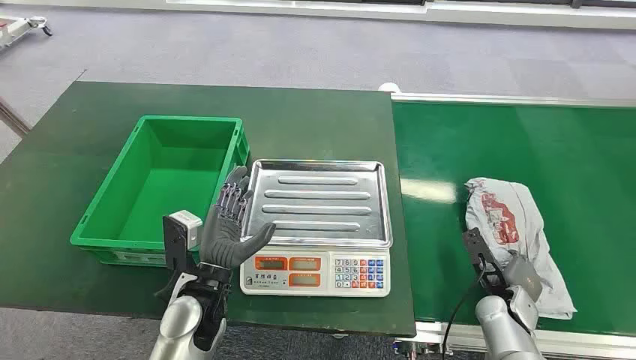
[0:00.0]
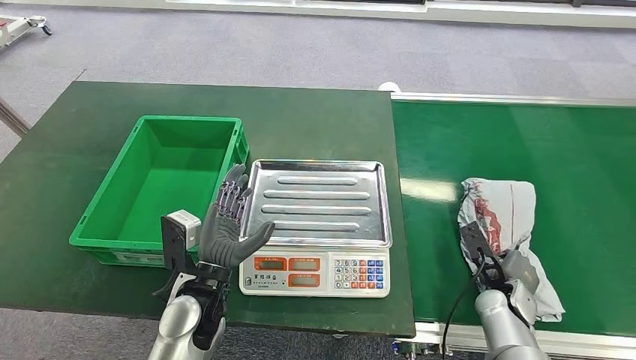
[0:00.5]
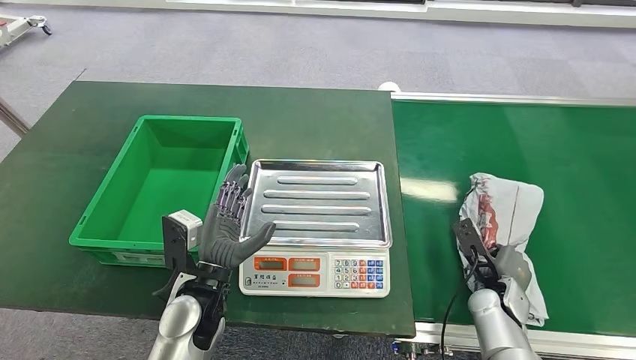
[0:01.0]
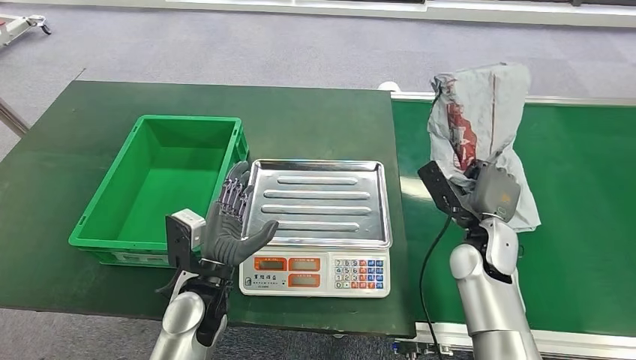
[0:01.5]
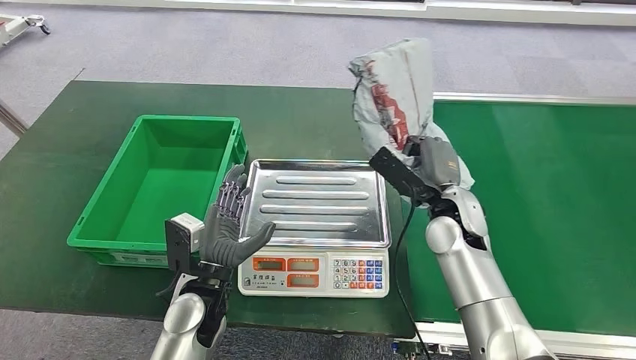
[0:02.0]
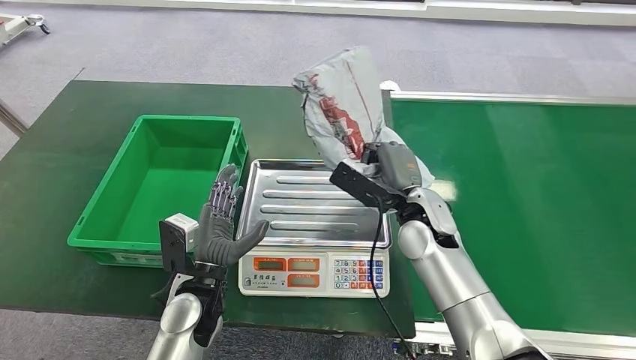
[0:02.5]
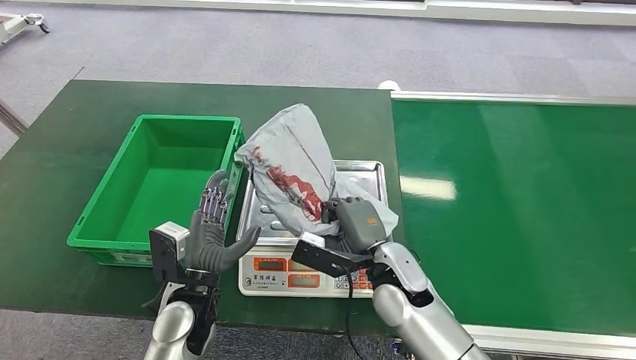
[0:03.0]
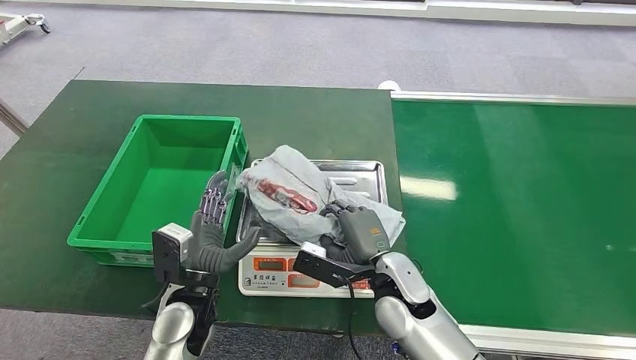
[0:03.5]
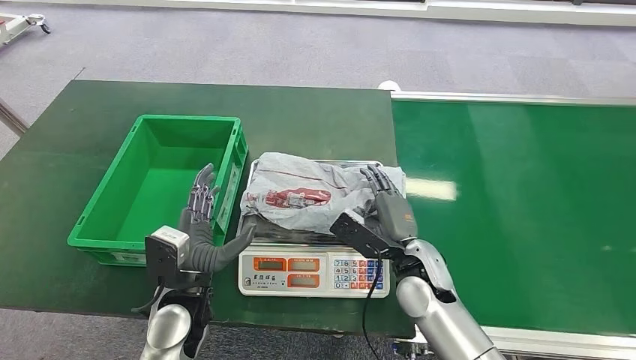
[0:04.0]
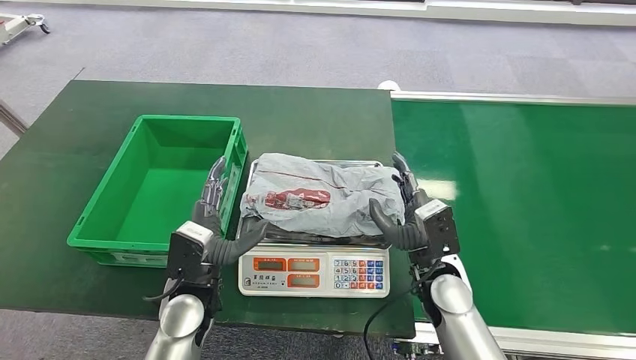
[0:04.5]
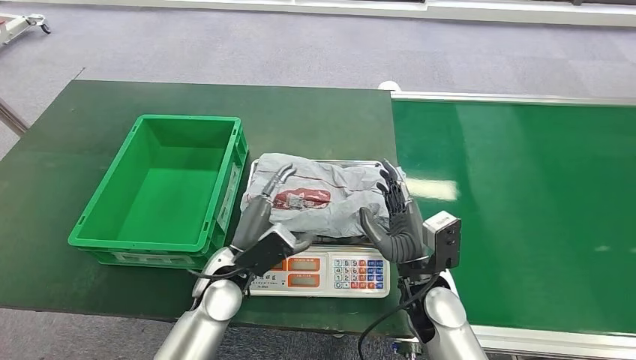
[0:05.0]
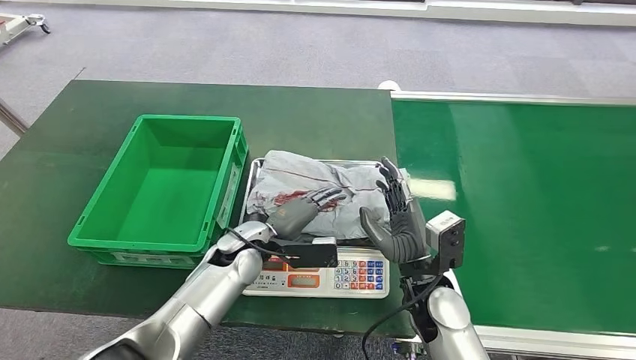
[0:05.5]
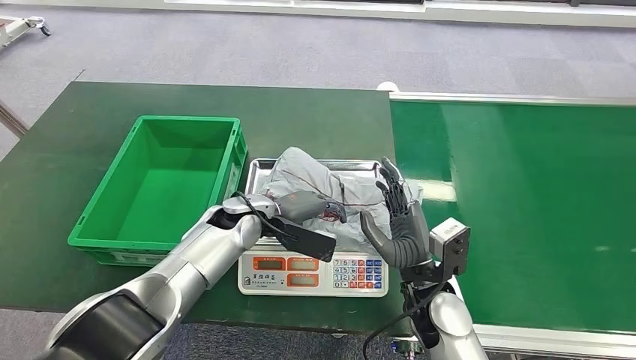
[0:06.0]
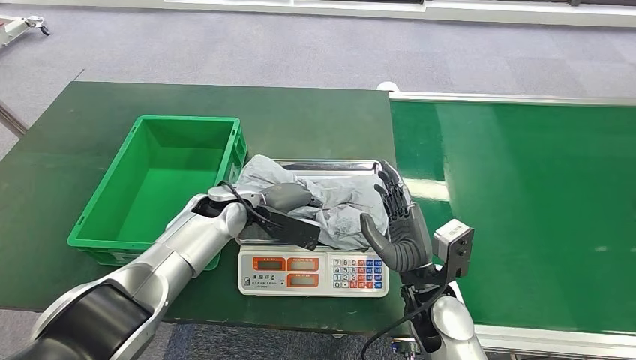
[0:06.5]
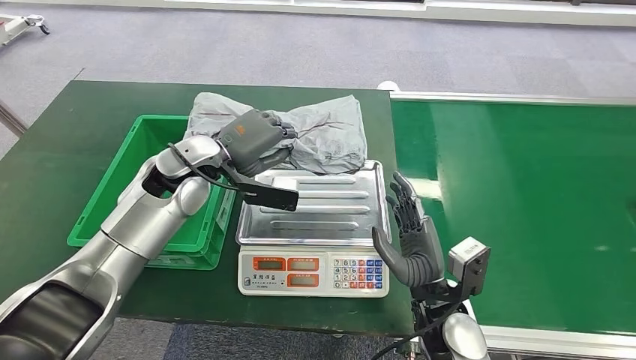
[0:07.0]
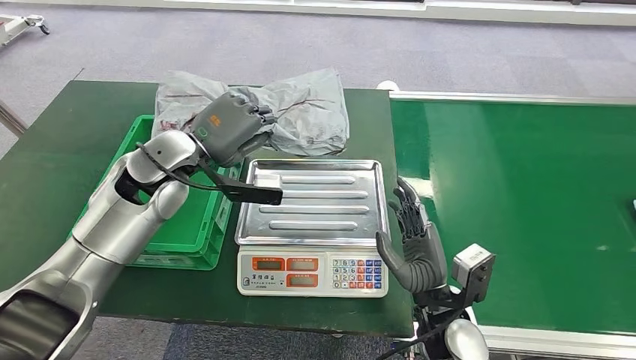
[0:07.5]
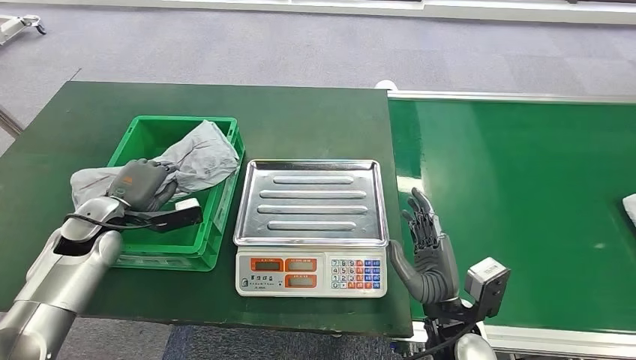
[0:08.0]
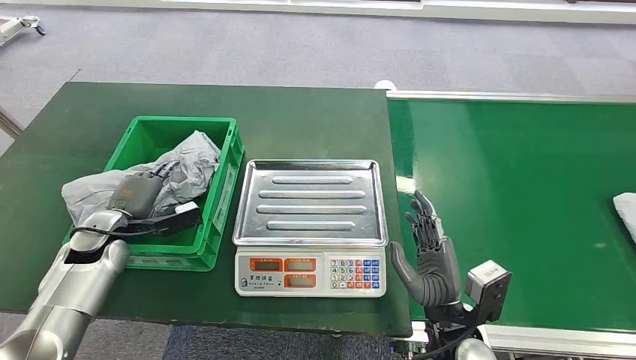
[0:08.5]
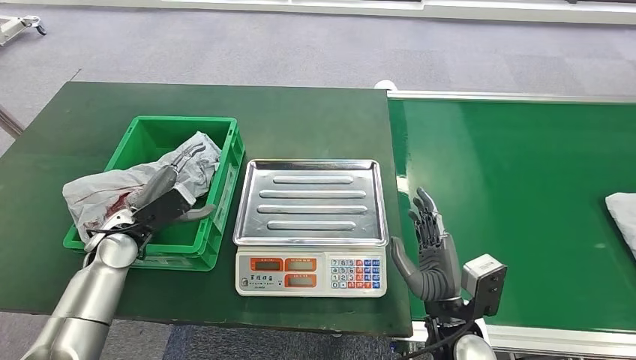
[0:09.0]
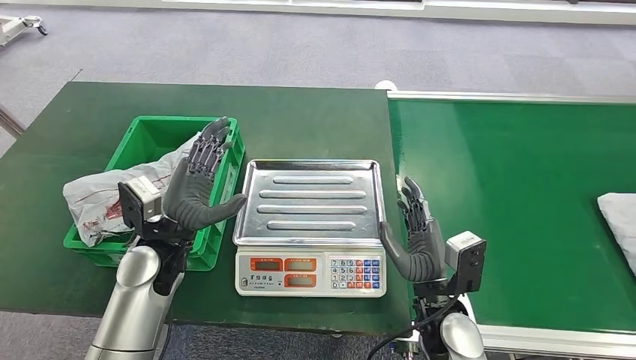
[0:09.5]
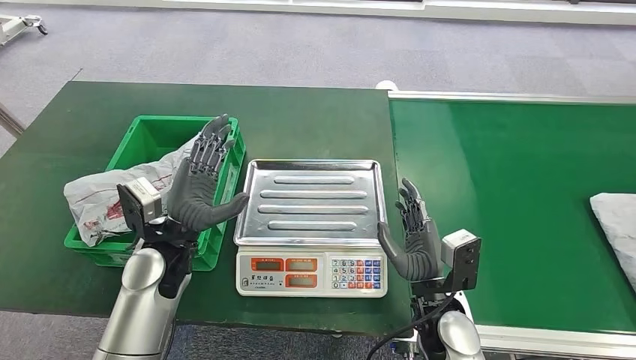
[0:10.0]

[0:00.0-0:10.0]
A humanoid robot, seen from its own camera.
Step, 0:00.0 to 0:01.5: Pick up the package from the conveyor belt.
Step, 0:02.0 to 0:04.0: Place the package onto the inbound machine.
Step, 0:04.5 to 0:07.0: Pick up the package from the inbound machine.
Step, 0:07.5 to 0:10.0: Place the package into the parcel locker.
0:08.0 to 0:10.0: The left hand heads to the right, covering some 20 cm.

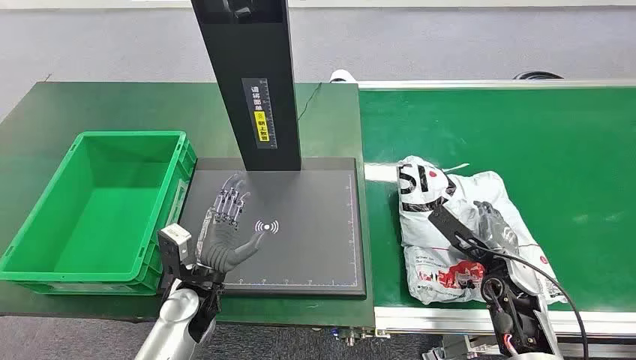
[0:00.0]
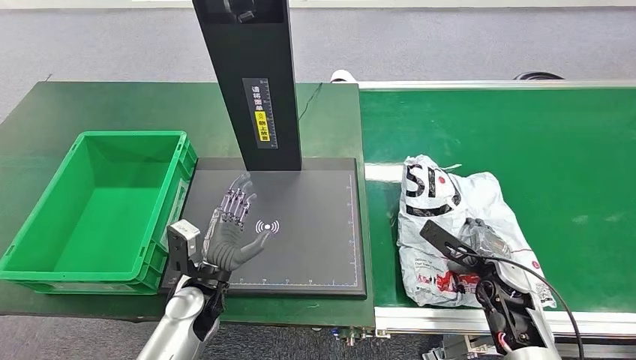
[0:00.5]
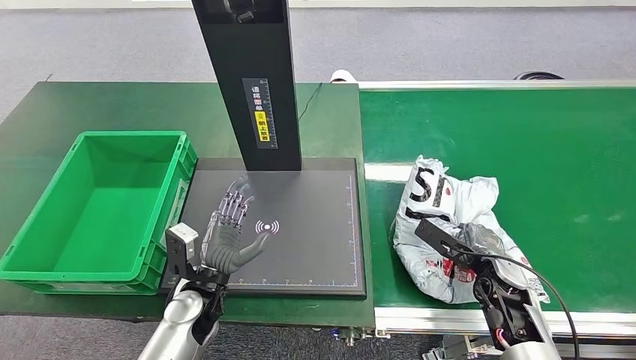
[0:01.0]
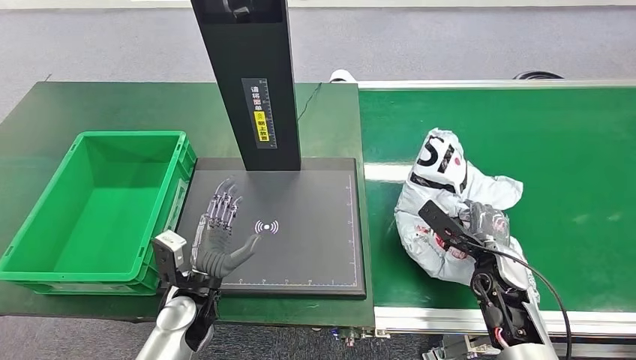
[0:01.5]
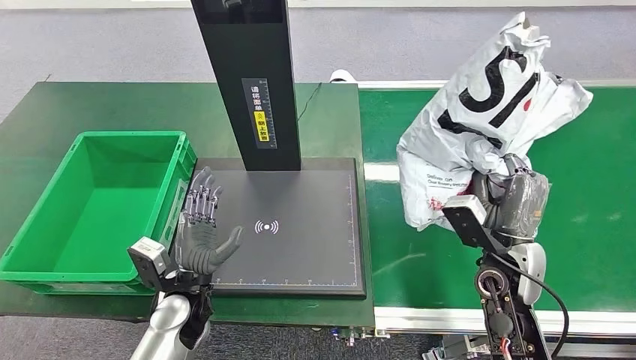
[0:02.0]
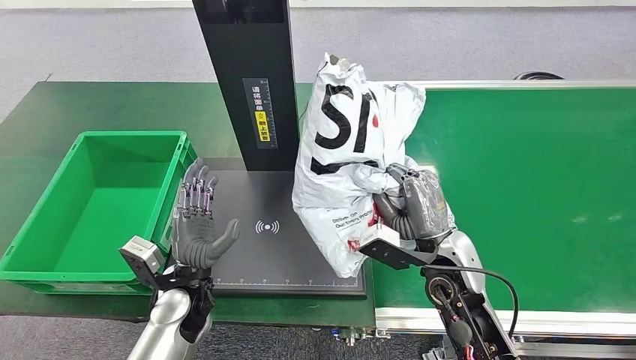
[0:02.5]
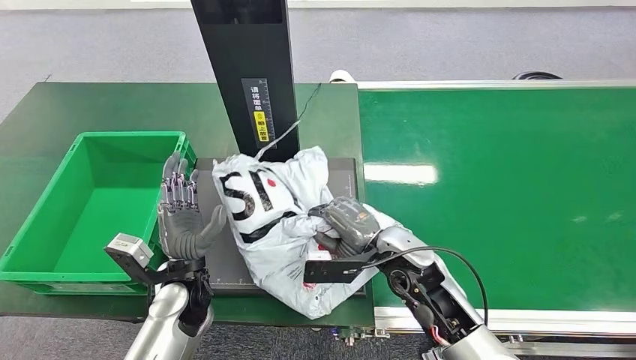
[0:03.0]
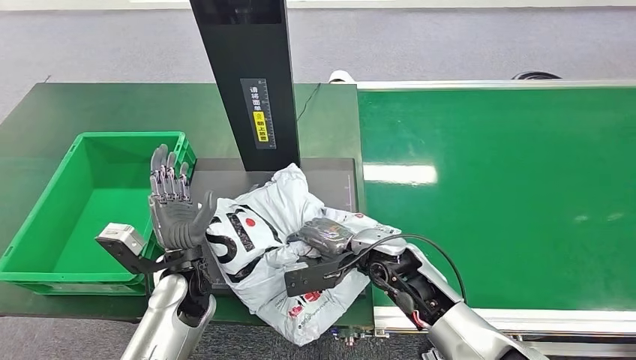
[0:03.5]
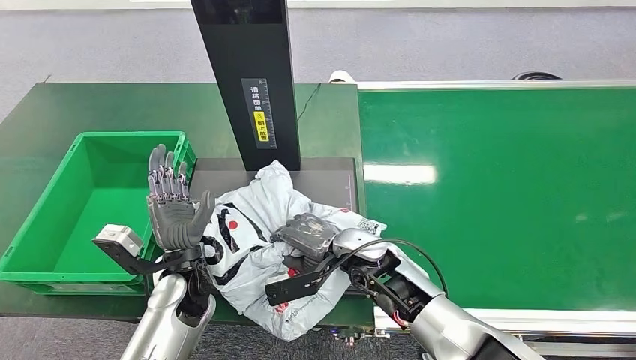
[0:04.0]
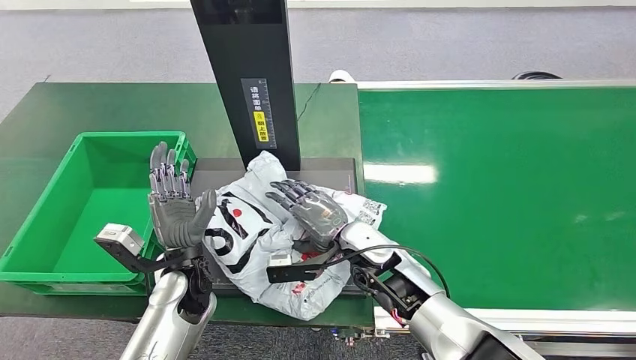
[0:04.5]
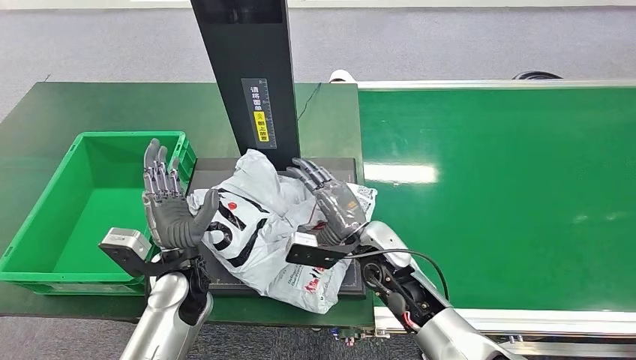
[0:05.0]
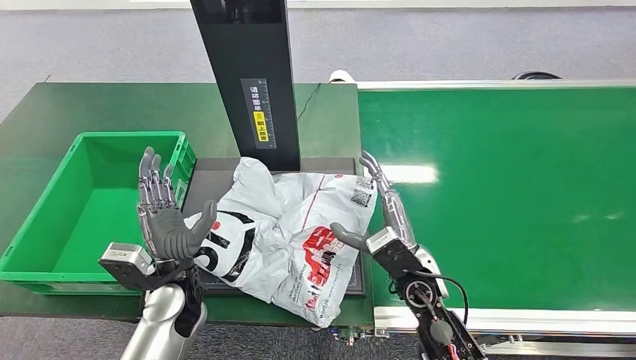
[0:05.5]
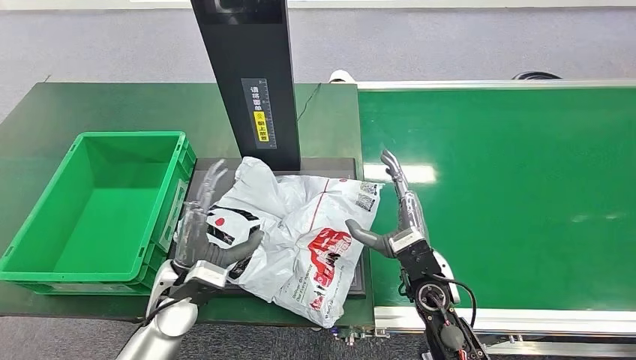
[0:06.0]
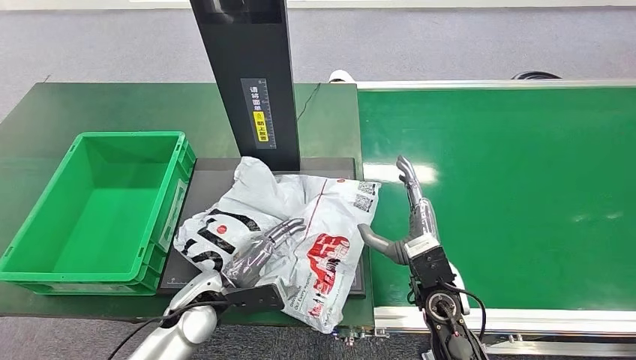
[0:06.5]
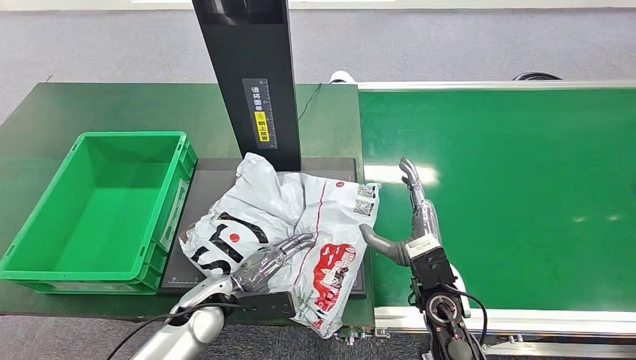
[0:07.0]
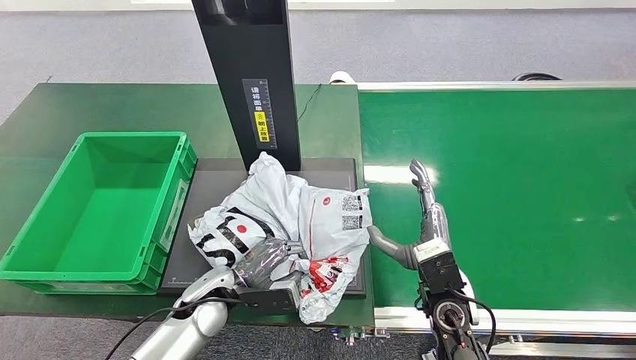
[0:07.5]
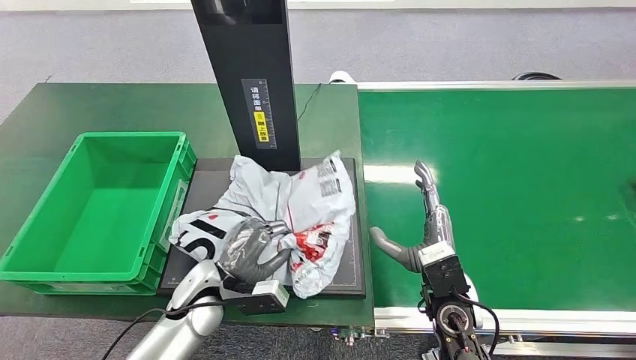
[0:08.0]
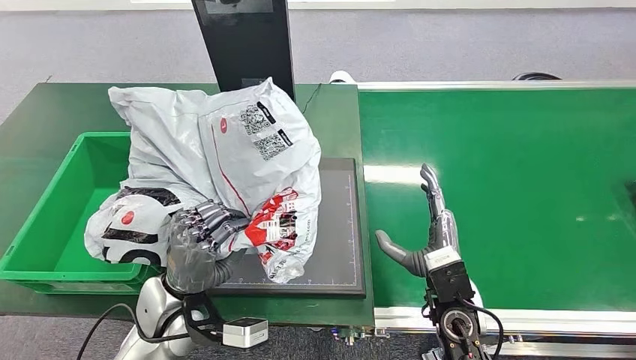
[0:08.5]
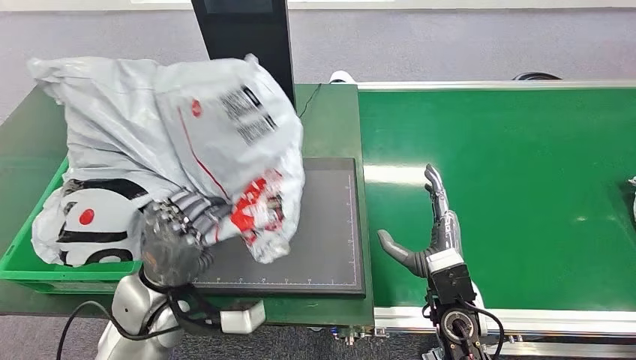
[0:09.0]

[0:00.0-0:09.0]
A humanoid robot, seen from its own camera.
Step, 0:00.0 to 0:02.0: Pick up the package from the conveyor belt.
Step, 0:02.5 to 0:05.5: Place the package onto the inbound machine.
Step, 0:06.0 to 0:08.5: Pick up the package from the inbound machine.

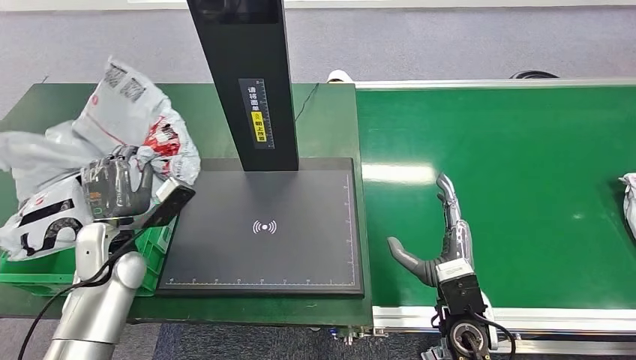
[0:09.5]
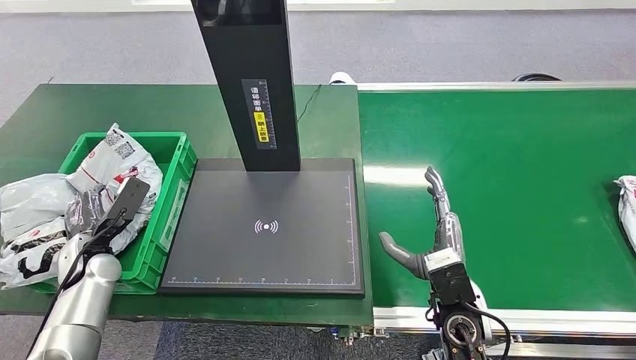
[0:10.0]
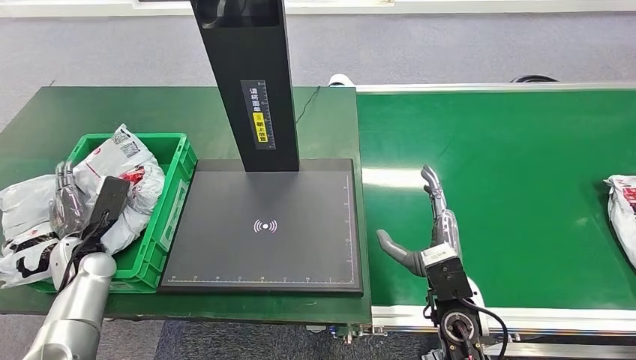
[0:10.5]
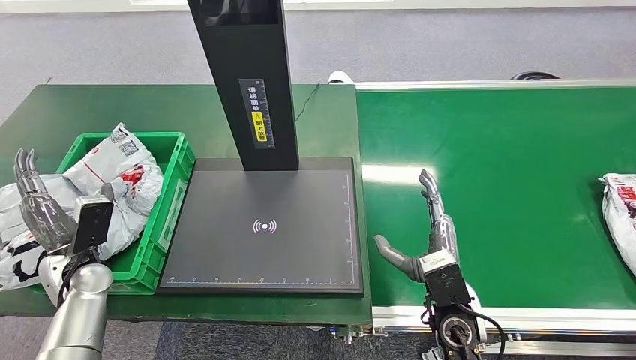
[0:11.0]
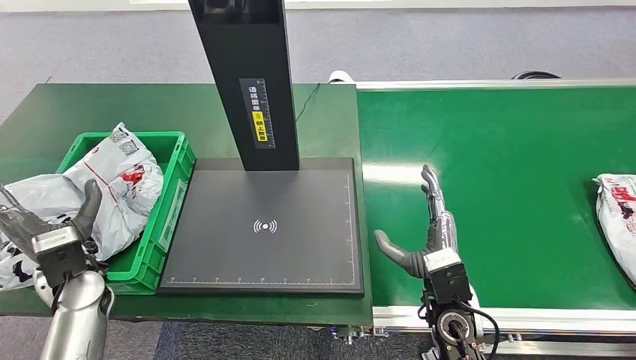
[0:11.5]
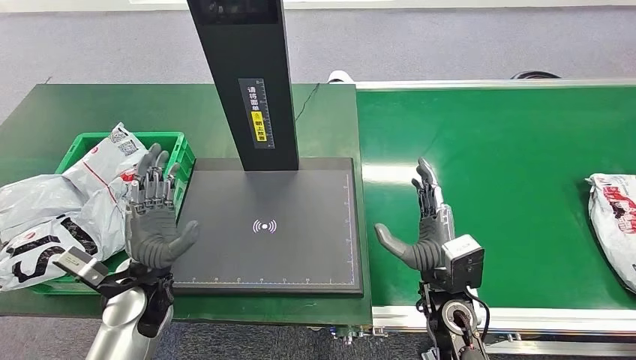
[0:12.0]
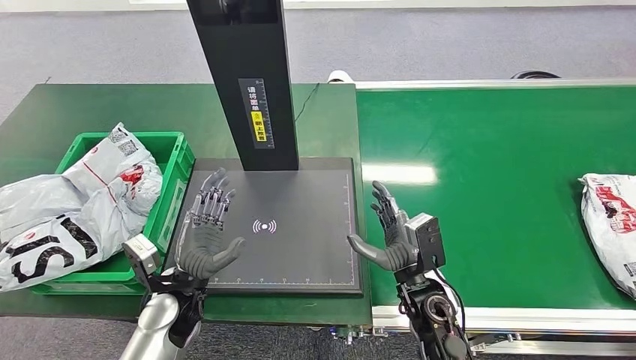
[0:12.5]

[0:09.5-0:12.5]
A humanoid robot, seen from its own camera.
Step, 0:09.5 to 0:12.5: Place the package into the parcel locker.
0:11.0 to 0:12.5: The left hand heads to the right, covering approximately 20 cm.
